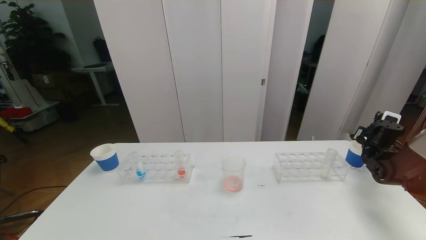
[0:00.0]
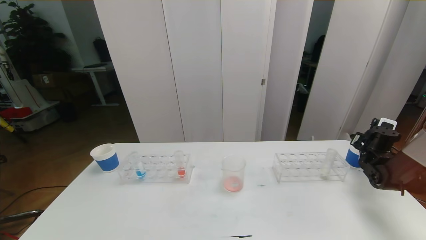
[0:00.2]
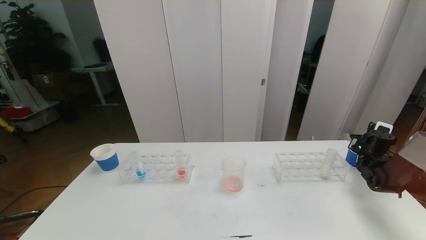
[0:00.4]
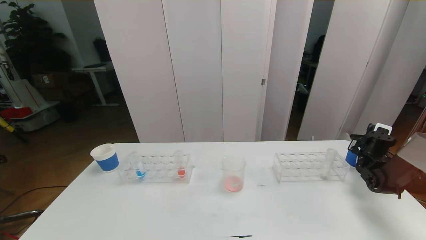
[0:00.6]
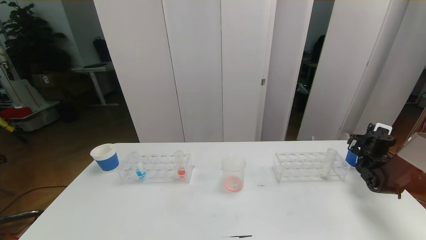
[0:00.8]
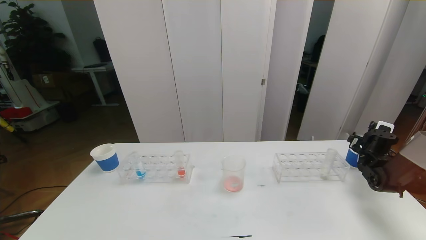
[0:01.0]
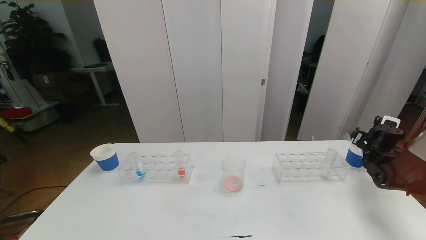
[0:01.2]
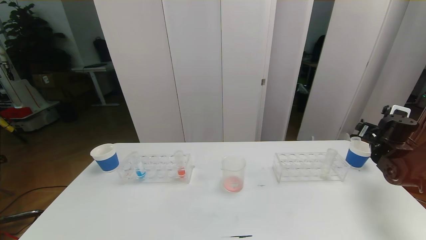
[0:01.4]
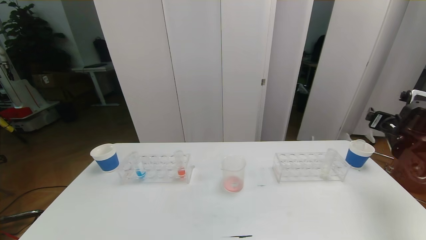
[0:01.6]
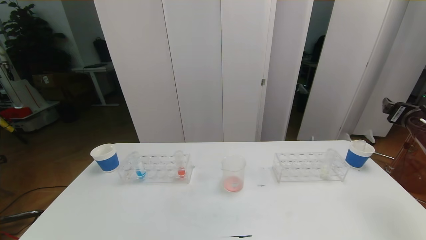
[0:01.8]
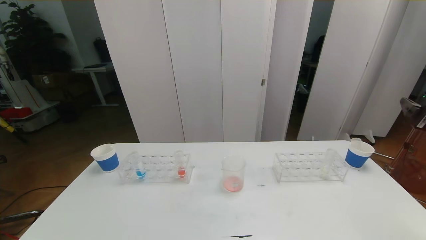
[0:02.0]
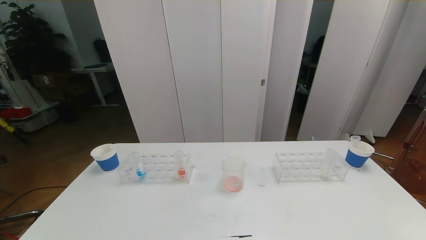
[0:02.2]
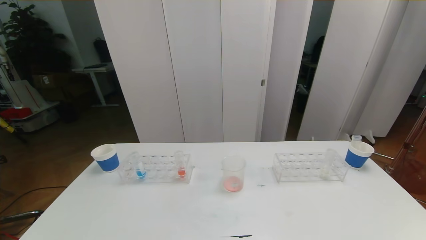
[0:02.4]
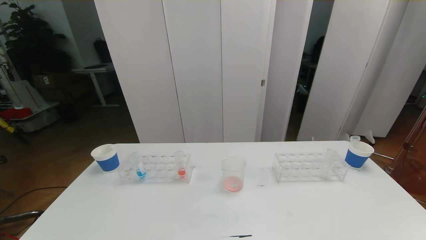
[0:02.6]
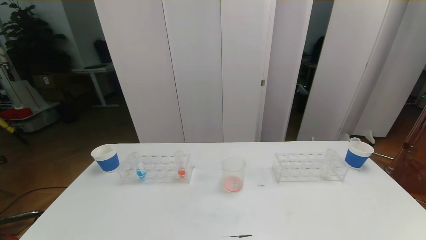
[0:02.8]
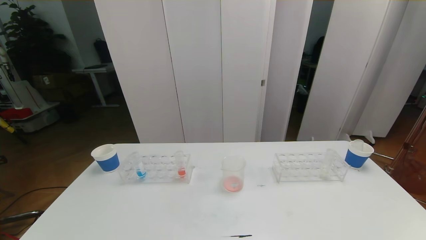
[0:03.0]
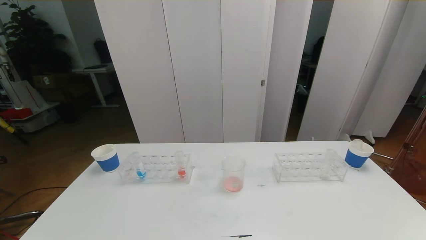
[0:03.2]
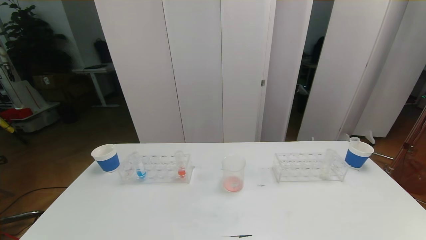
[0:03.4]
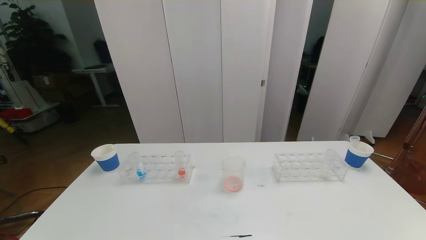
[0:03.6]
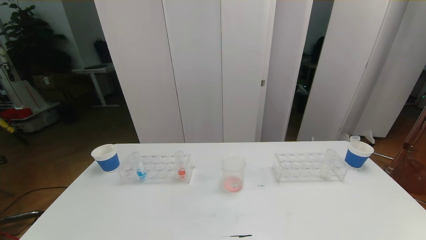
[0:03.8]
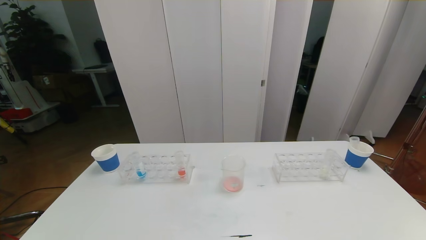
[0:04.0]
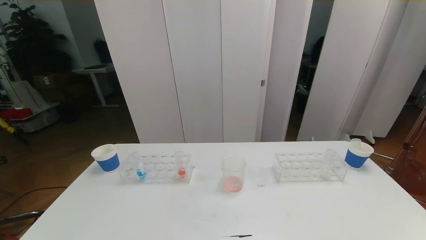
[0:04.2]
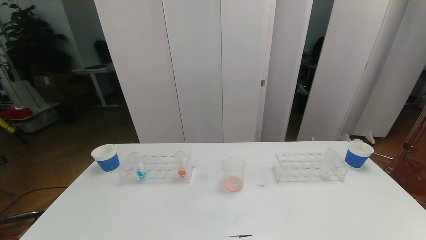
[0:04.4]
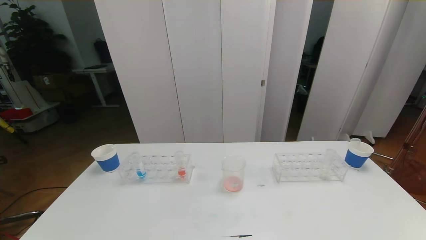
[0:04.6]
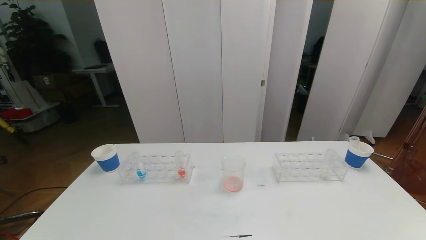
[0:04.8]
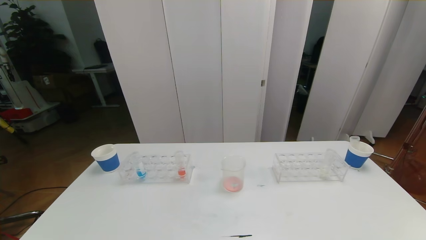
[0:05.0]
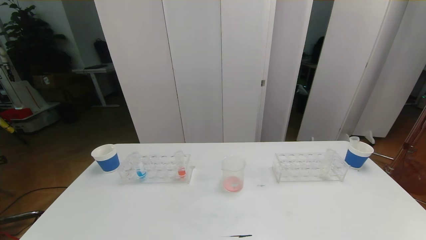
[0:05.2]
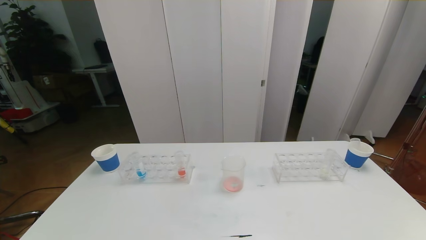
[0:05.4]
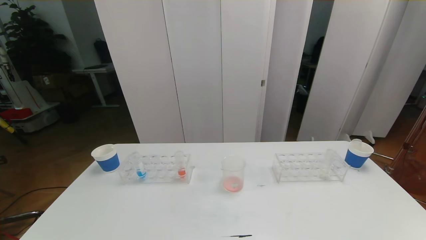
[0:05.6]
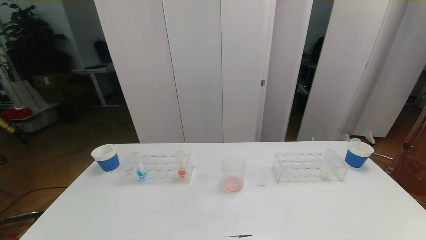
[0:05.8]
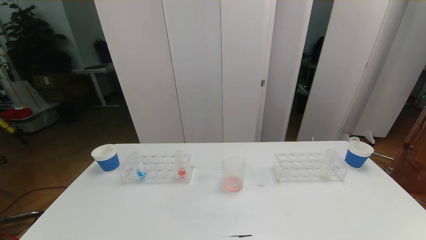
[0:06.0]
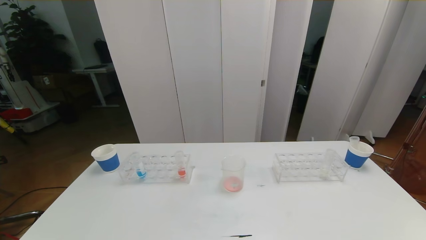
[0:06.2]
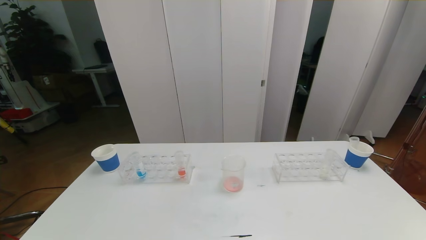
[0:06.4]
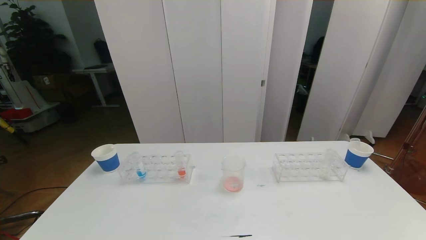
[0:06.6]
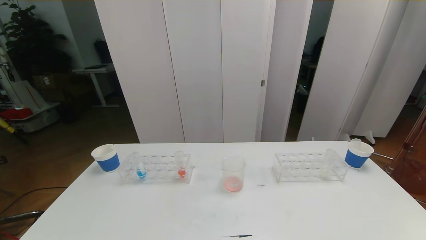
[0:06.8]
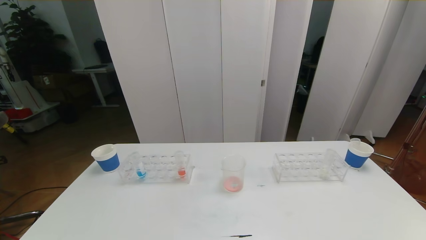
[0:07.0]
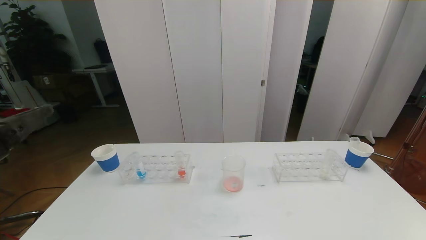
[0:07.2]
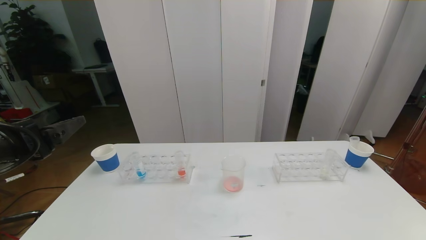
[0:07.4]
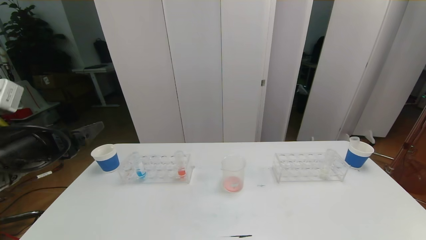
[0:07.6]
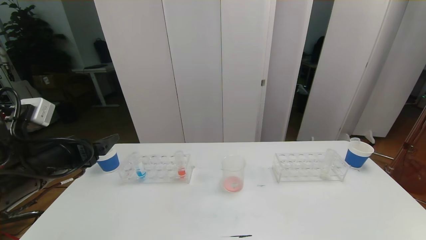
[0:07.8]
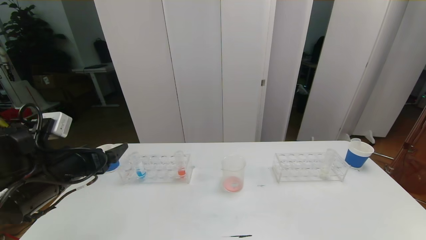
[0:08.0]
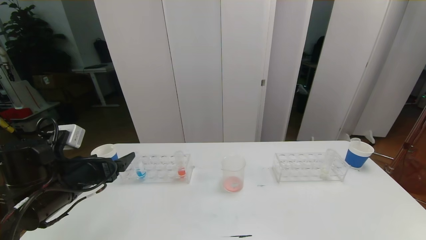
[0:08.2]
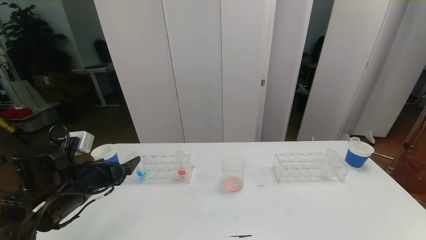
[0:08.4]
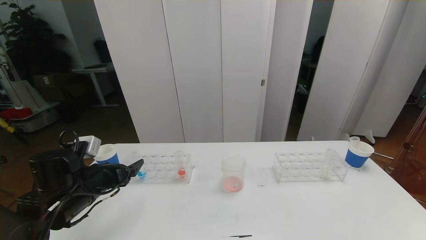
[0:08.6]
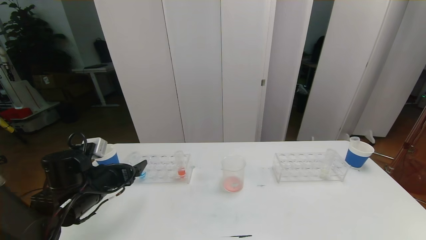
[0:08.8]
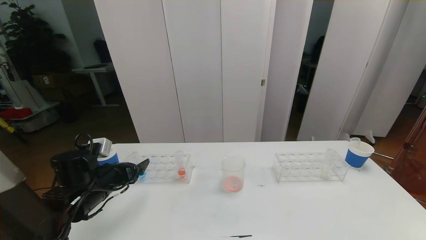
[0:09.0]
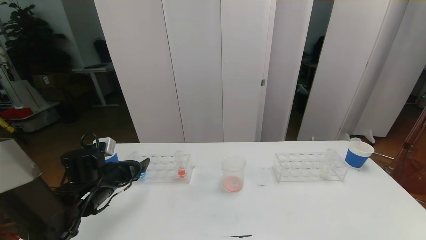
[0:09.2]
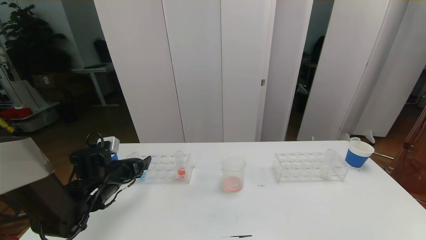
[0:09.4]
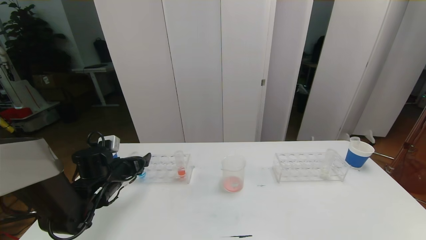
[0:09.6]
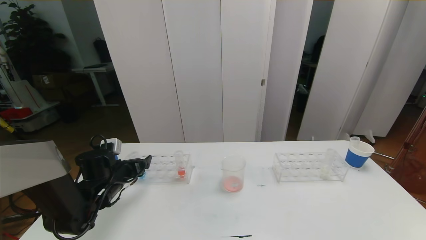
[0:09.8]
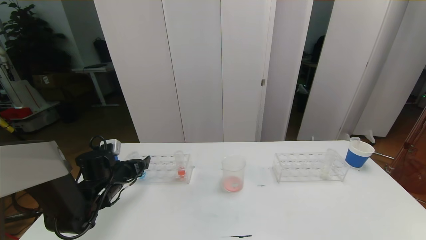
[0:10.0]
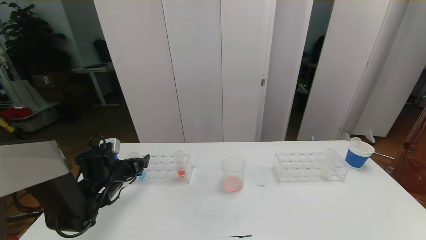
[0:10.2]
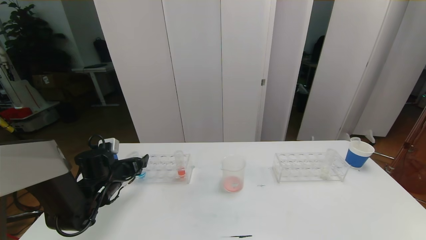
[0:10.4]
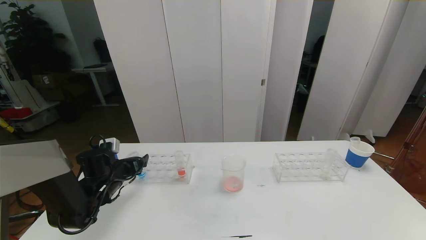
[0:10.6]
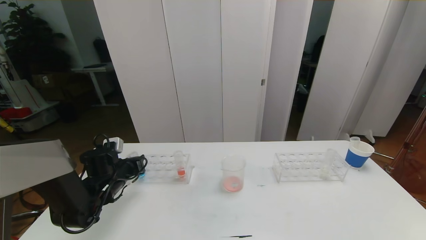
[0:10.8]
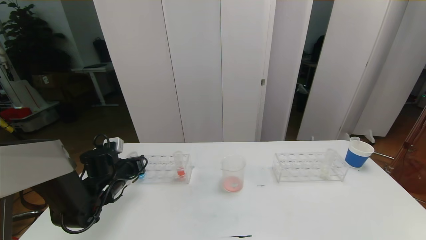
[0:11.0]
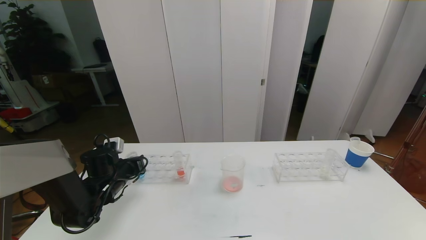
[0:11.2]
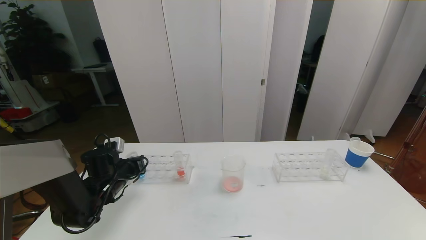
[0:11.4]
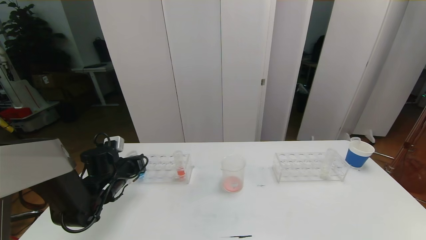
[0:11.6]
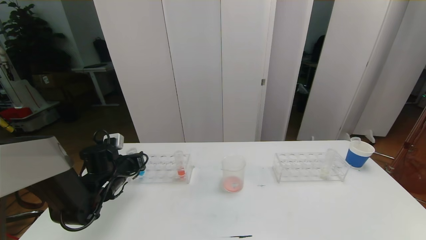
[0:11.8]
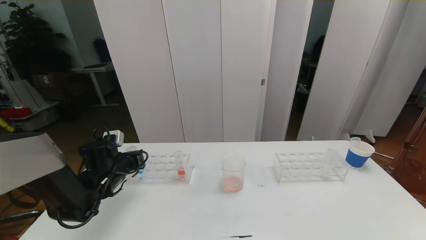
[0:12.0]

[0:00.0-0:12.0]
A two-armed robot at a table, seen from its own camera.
Task of the whole recording: pick up the test tube with red pigment the test tube with blue pigment and the test tube with white pigment by grippers and pour them into the beaker.
Step, 0:00.0 to 0:05.8: Pour the red reagent into the graduated cylinder and place the test tube into the paper cup.
0:00.0 to 0:01.6: The right gripper travels upward and backward by about 15 cm, and opens up.
0:01.6 to 0:03.0: The right gripper moves backward, some 40 cm.
0:06.0 to 0:07.6: The left gripper is displaced forward and upward by some 25 cm.
0:07.6 to 0:09.0: The left gripper heads downward and forward, covering some 15 cm.
0:09.0 to 0:10.4: The left gripper travels forward by roughly 5 cm.
0:10.4 to 0:12.0: The left gripper closes.

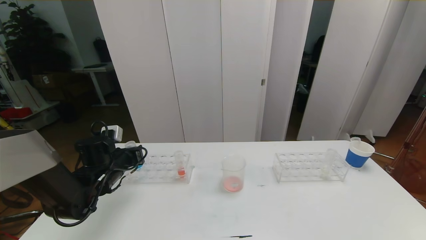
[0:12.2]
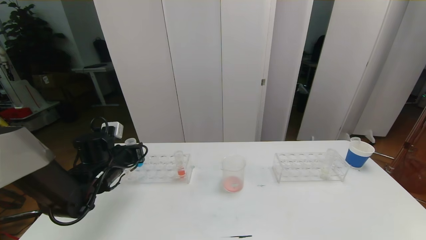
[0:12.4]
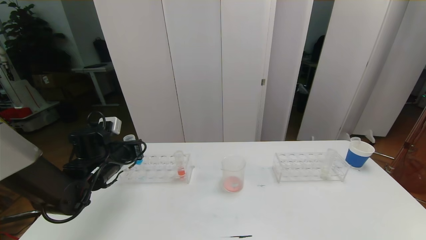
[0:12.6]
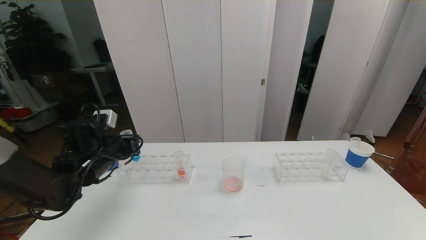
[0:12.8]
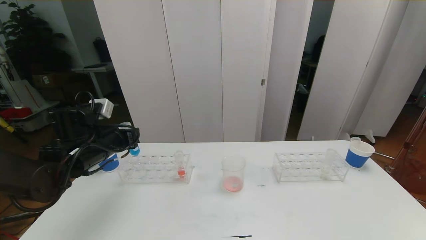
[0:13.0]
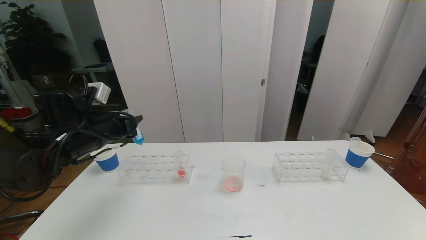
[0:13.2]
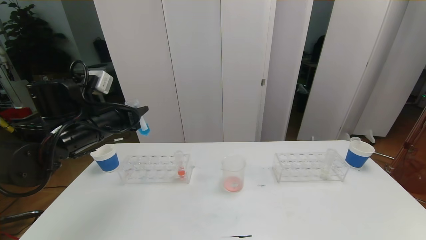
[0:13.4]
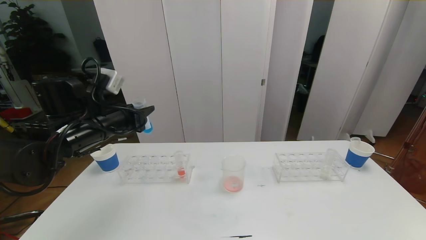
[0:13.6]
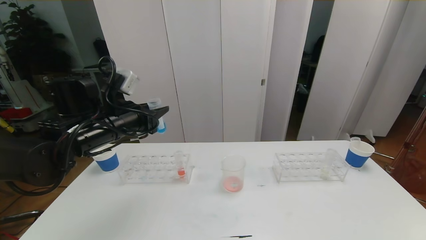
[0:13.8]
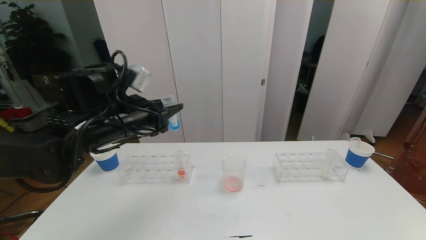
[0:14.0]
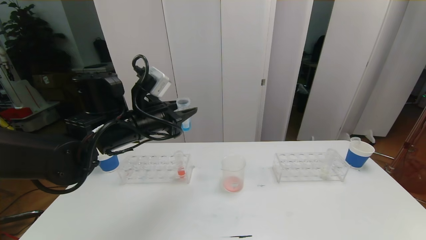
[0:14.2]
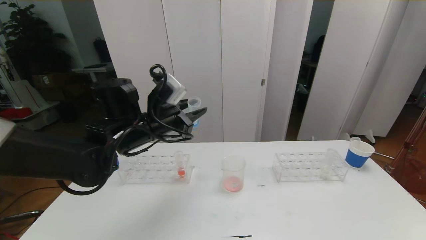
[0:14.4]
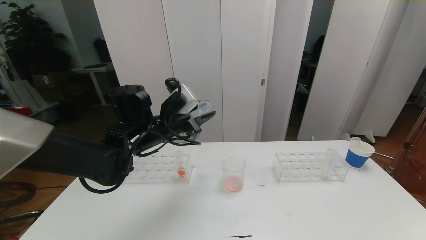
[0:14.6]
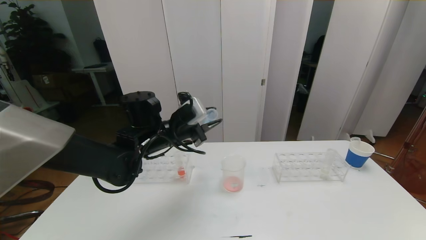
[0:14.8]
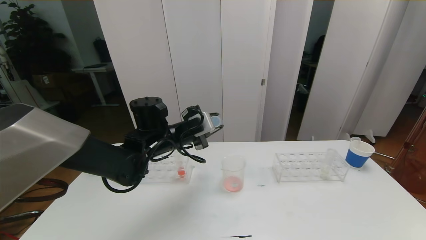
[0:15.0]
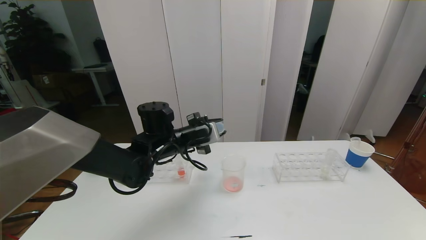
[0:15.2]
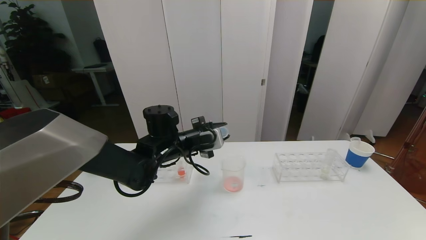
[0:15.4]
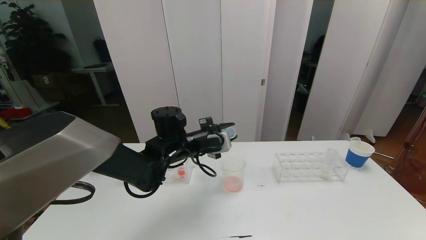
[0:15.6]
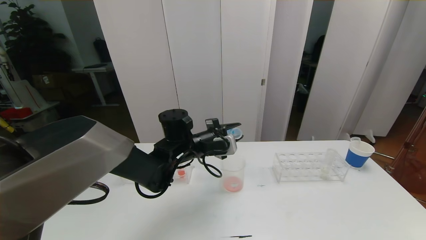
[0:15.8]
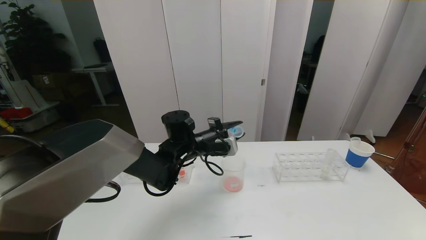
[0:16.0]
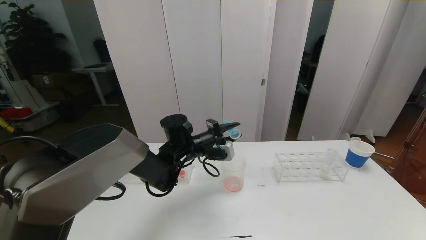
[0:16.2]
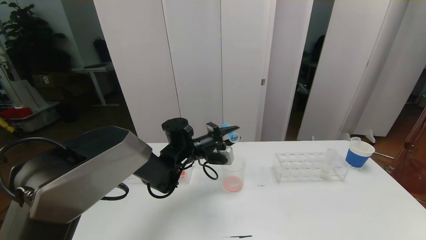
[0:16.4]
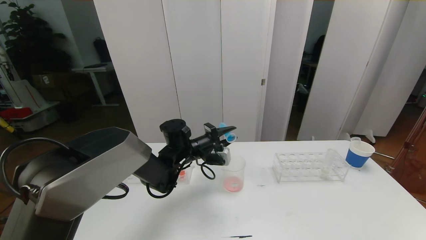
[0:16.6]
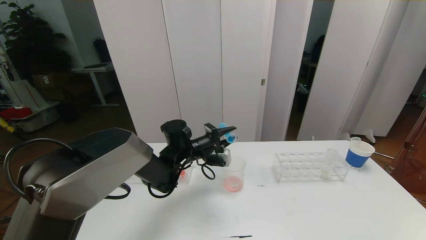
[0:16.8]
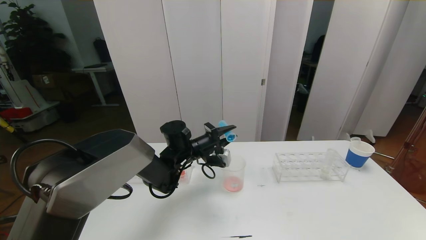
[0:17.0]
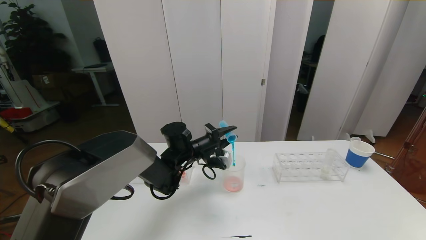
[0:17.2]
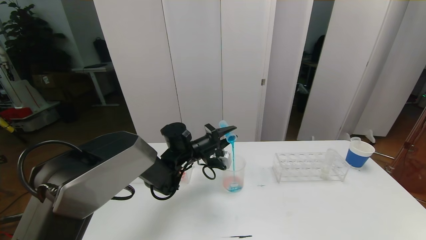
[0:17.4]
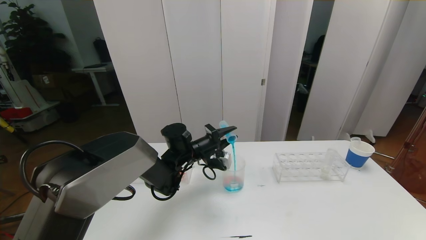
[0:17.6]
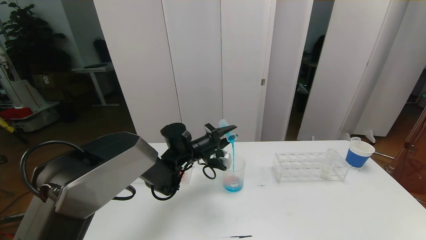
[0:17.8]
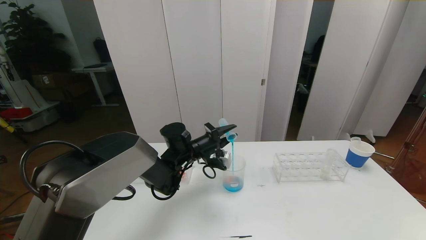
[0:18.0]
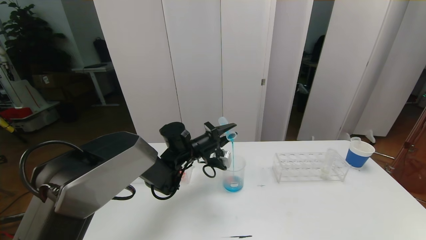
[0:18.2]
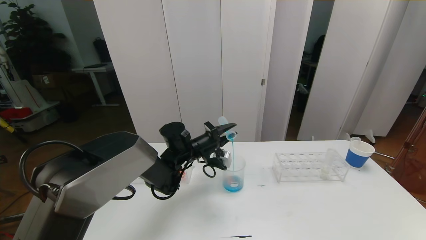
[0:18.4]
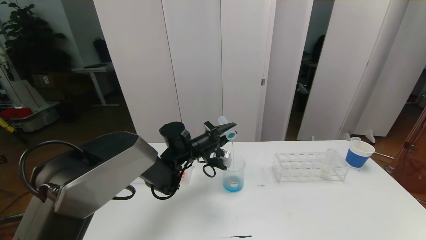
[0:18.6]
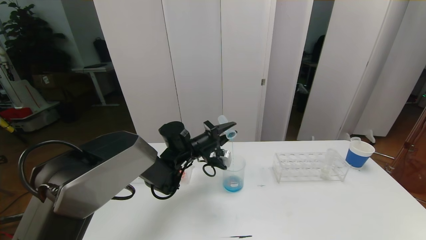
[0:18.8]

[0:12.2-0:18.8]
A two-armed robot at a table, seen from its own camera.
Task of the whole recording: pick up the test tube with red pigment the test tube with blue pigment and the test tube with white pigment by grippers and pour them into the beaker.
0:12.2 to 0:13.8: The left gripper travels upward and to the right by about 15 cm.
0:13.8 to 0:15.4: The left gripper moves to the right and downward, some 15 cm.
0:15.4 to 0:17.2: The left gripper is displaced downward by roughly 5 cm.
0:17.2 to 0:18.8: There are only small adjustments of the grippers.
